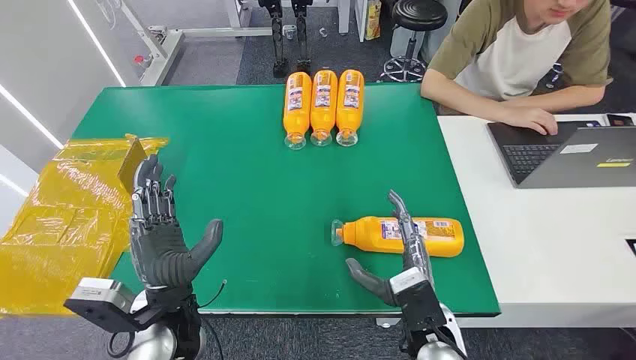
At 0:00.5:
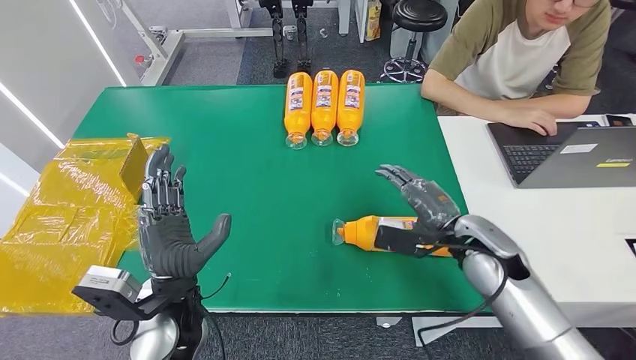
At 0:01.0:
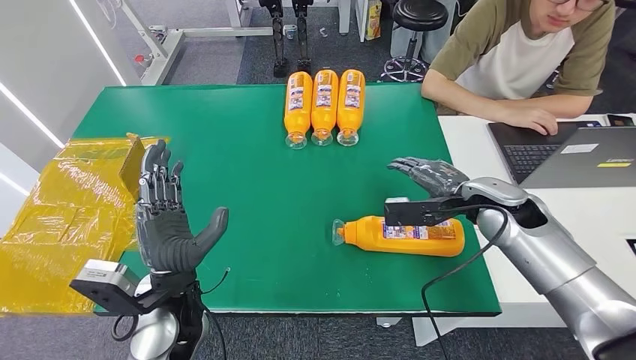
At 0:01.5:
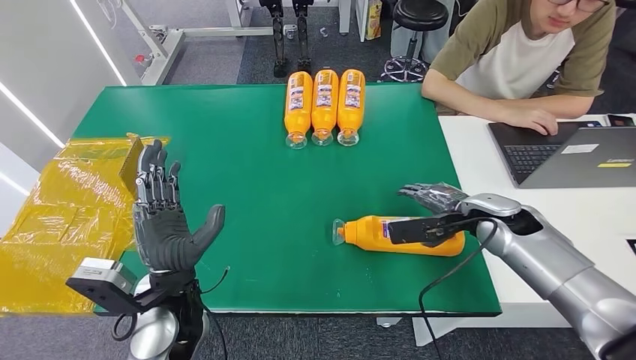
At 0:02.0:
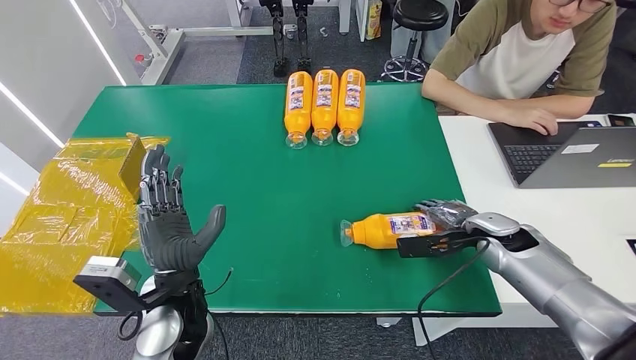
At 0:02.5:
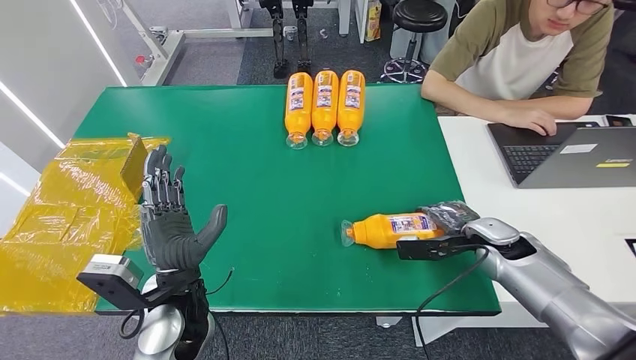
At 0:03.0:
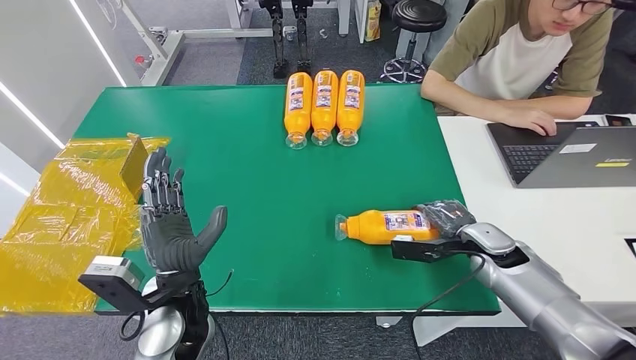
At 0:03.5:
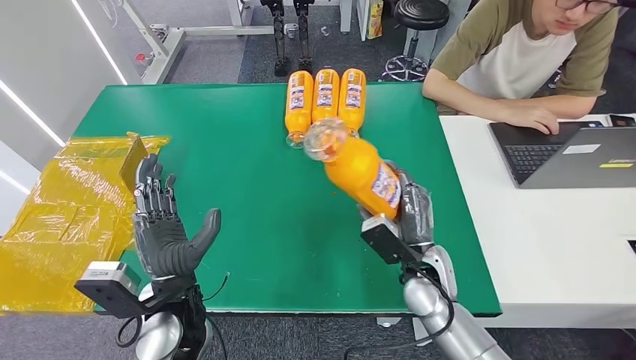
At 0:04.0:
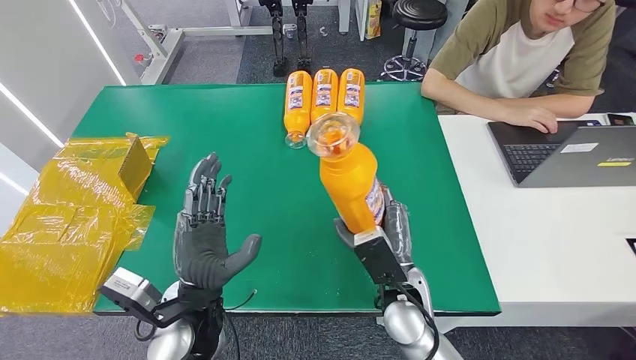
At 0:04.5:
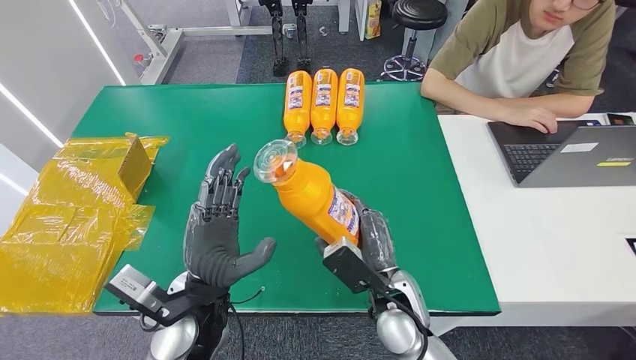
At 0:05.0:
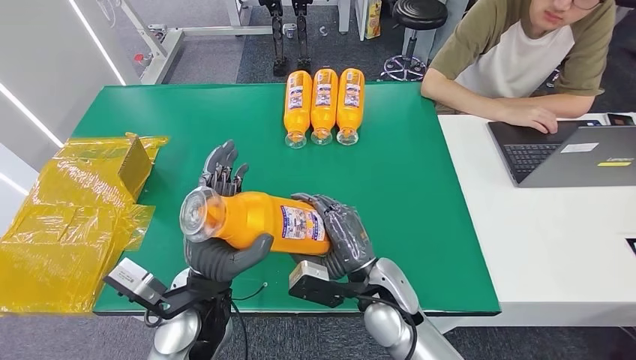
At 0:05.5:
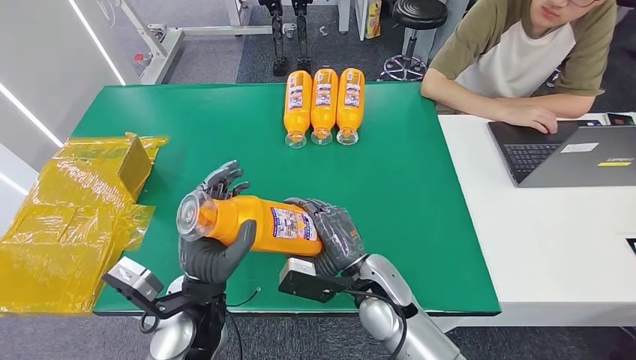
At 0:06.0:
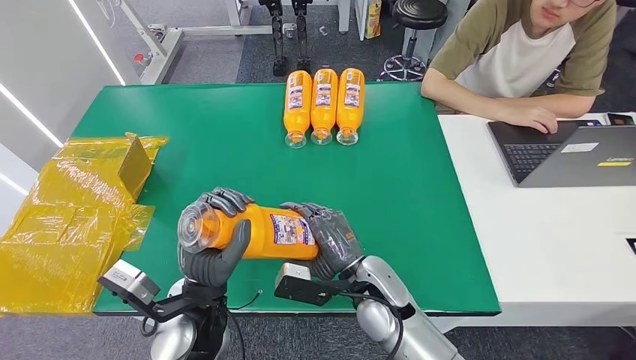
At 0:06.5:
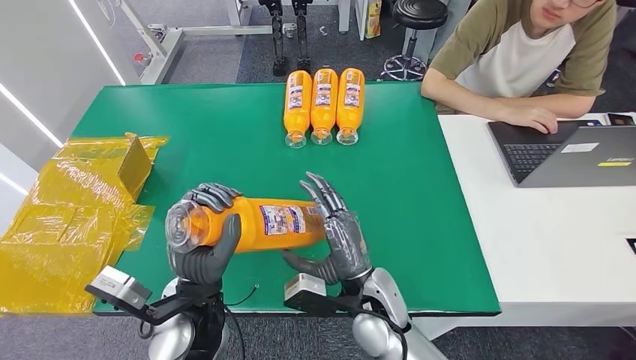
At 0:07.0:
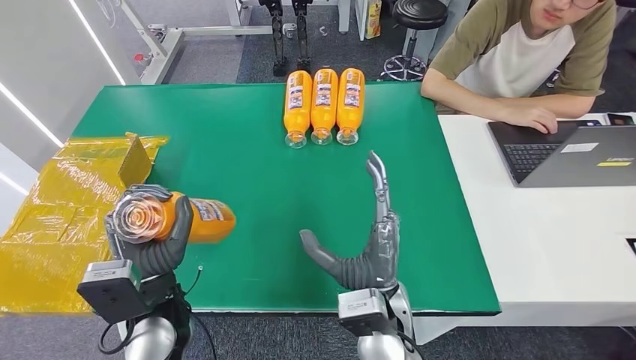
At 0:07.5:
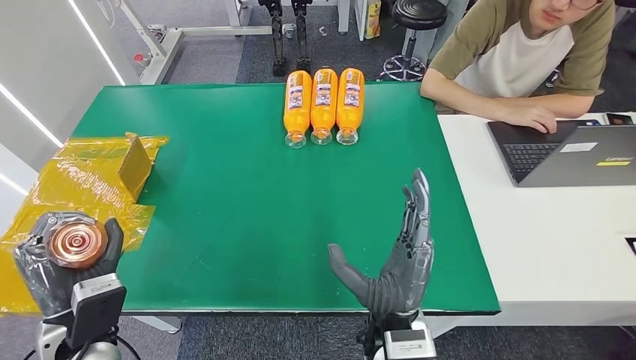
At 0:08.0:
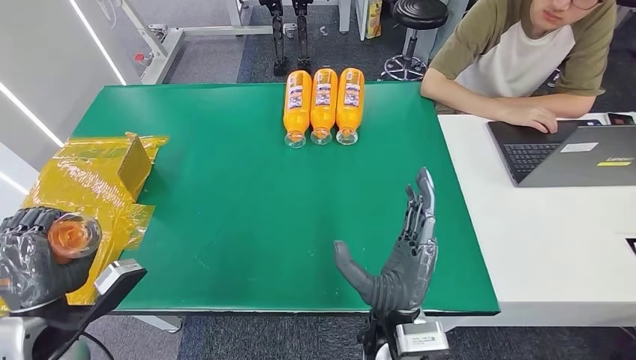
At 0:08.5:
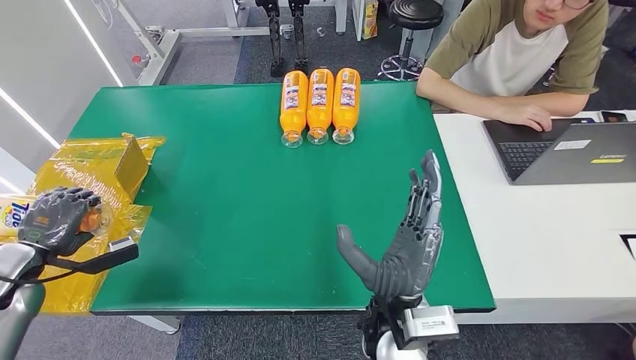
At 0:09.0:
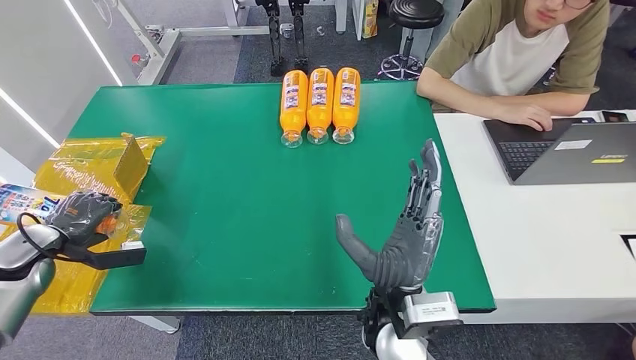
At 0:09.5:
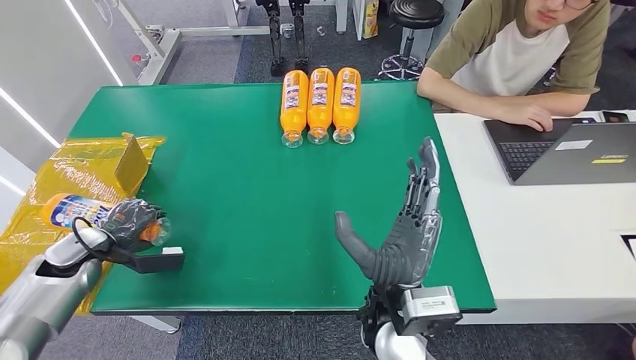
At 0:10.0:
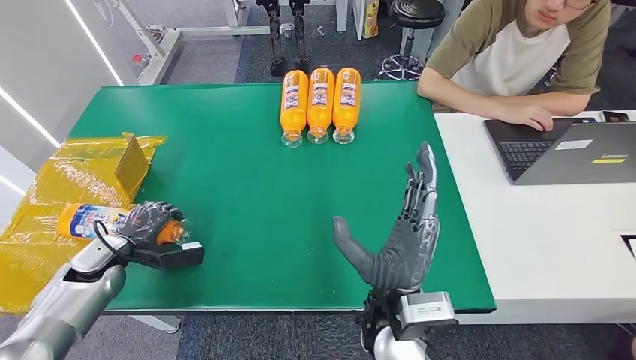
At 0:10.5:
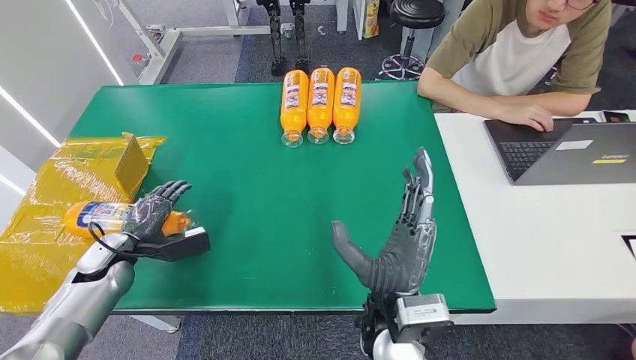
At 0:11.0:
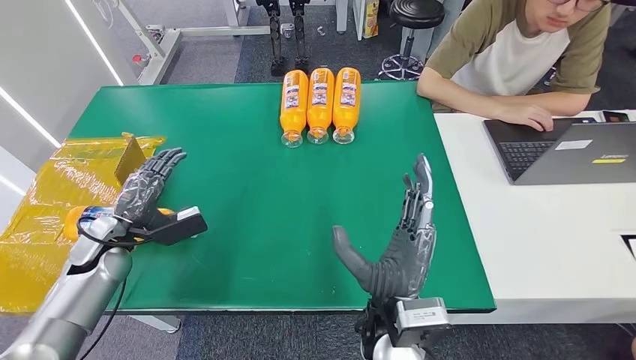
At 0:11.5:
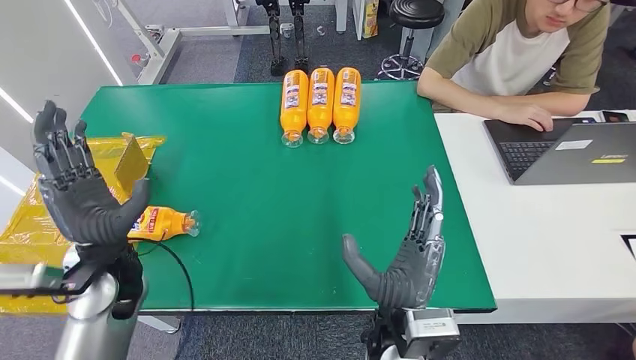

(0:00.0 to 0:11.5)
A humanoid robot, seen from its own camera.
Step, 0:00.0 - 0:03.5: Pick up the bottle from the table.
Step, 0:04.0 - 0:11.0: Turn the bottle to the front side.
0:06.0 - 0:07.5: The right hand is displaced backward by roughly 10 cm. Meanwhile the left hand is displaced to the left by roughly 15 cm.
0:09.5 - 0:11.5: The left hand moves to the right, about 20 cm.

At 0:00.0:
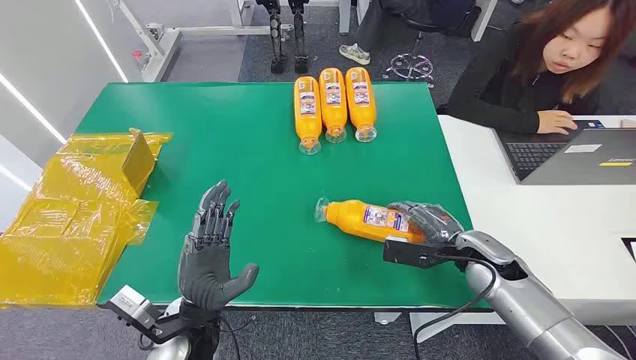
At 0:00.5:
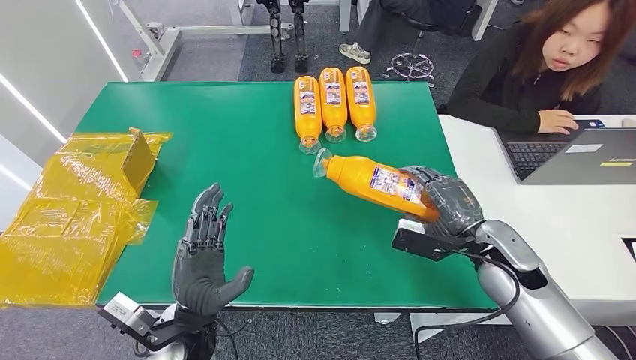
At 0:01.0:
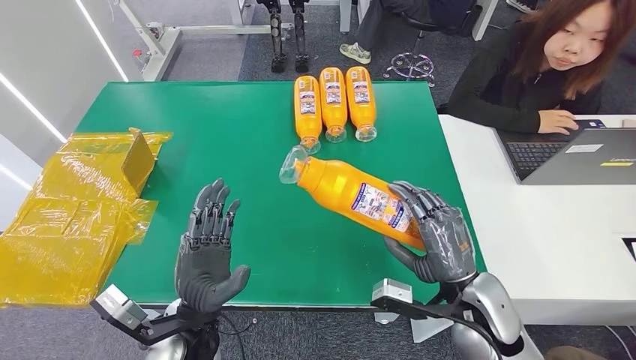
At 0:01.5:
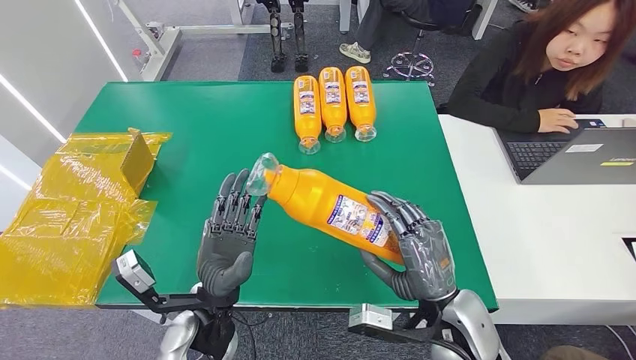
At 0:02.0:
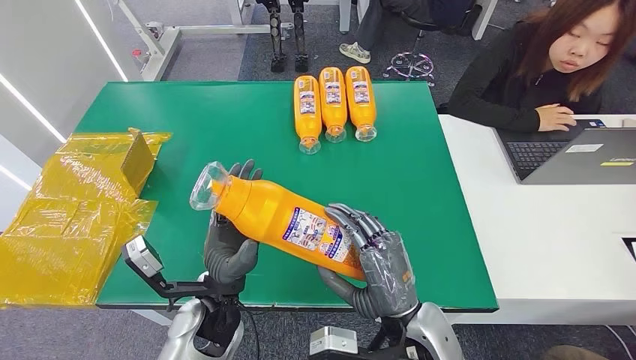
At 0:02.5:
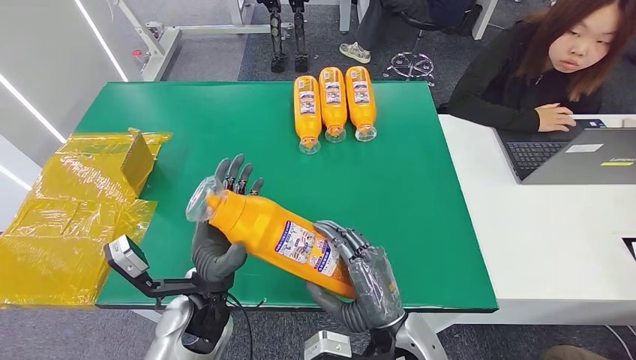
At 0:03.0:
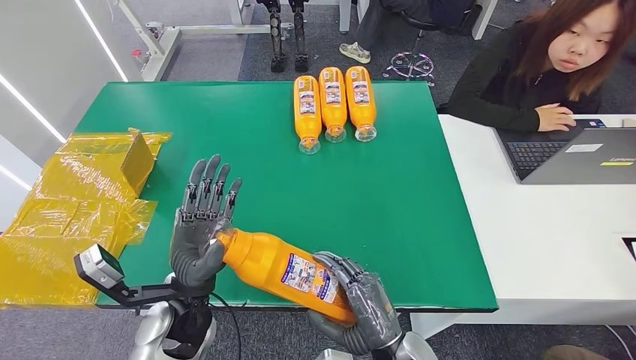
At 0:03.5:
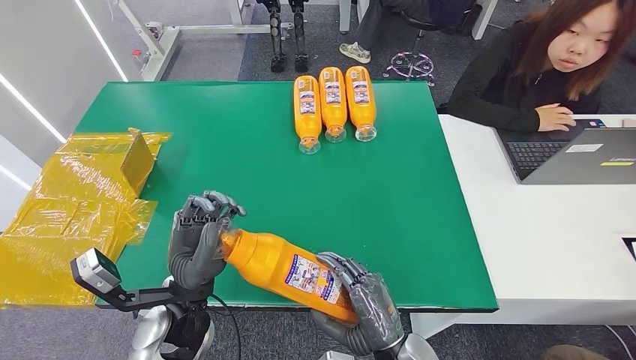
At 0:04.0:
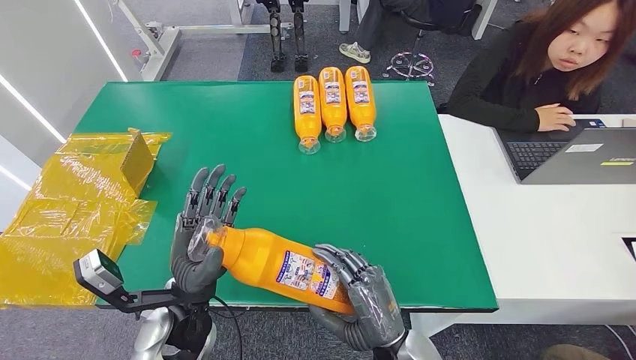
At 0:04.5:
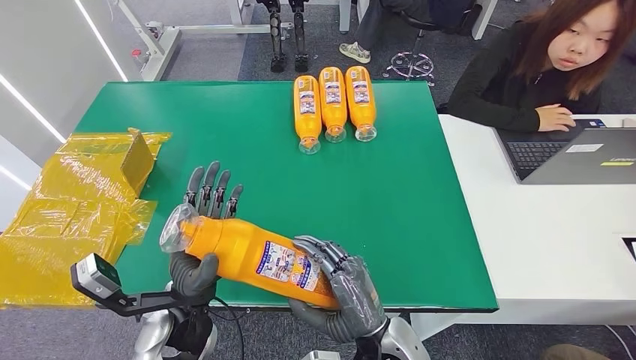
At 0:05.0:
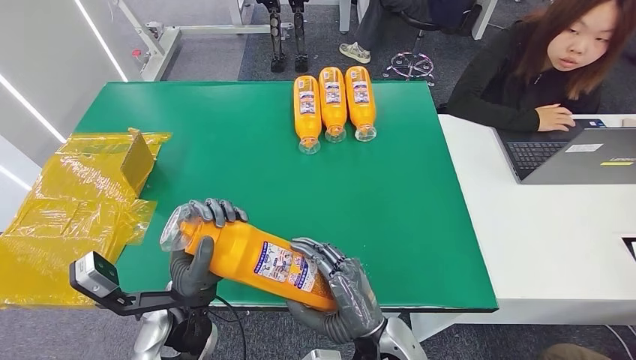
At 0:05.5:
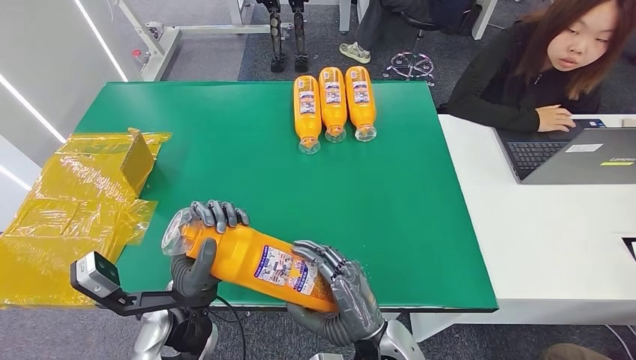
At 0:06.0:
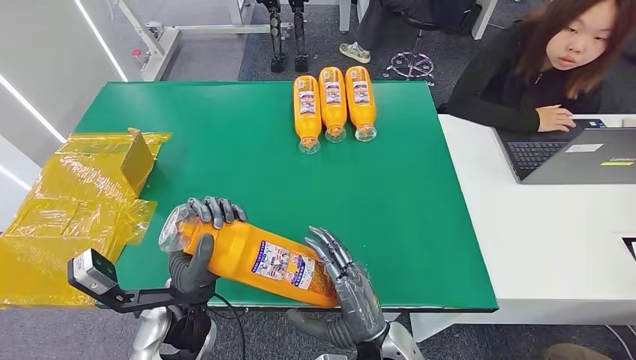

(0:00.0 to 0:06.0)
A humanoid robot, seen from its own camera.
Step, 0:00.0 - 0:02.5: Pick up the bottle from the table.
Step, 0:03.0 - 0:05.5: Turn the bottle to the front side.
0:02.0 - 0:04.0: The right hand is displaced downward by about 5 cm.
0:04.0 - 0:06.0: There are only small adjustments of the hands.
